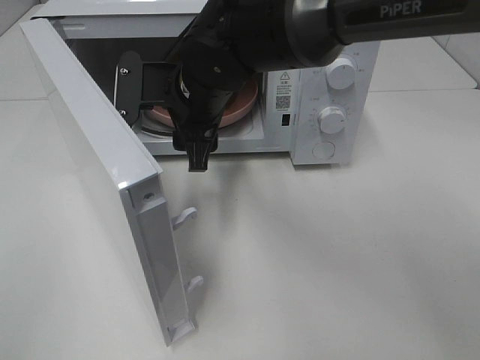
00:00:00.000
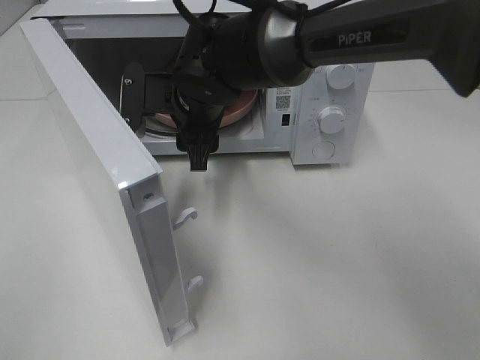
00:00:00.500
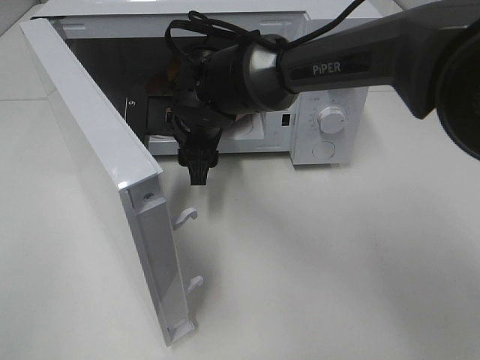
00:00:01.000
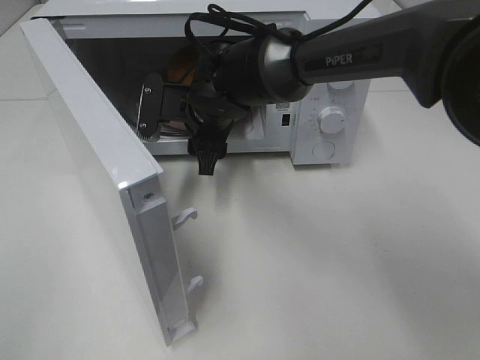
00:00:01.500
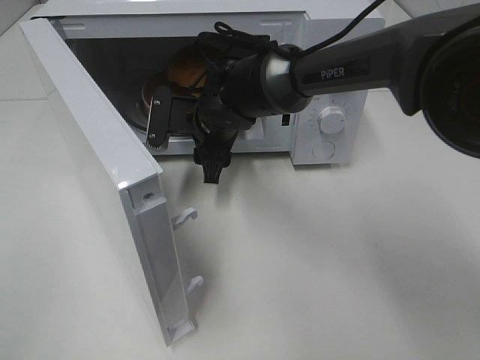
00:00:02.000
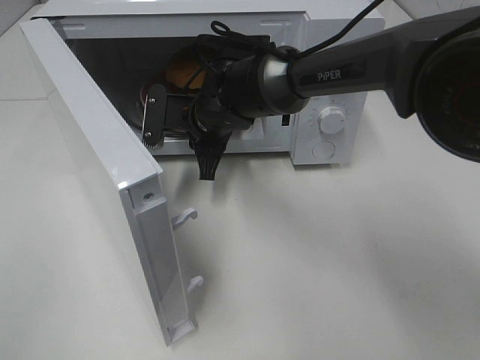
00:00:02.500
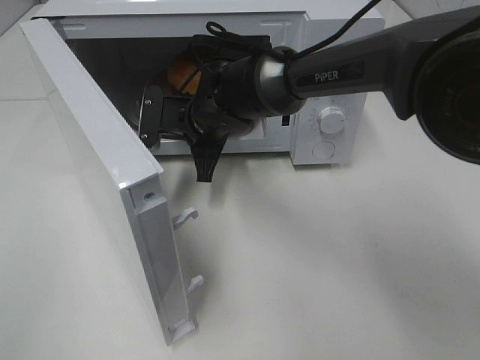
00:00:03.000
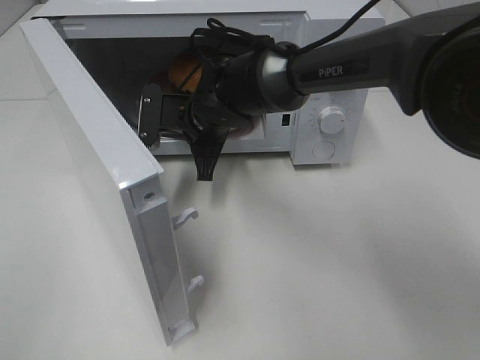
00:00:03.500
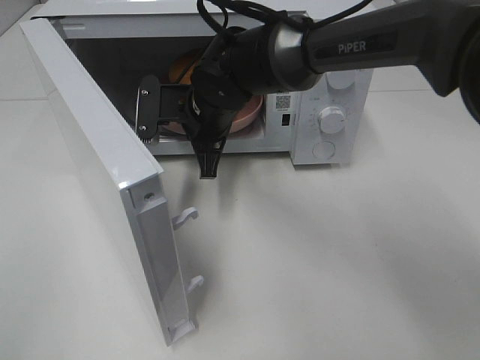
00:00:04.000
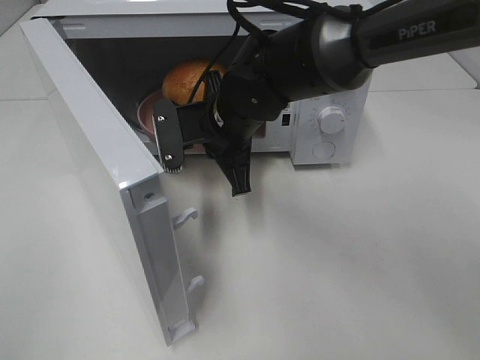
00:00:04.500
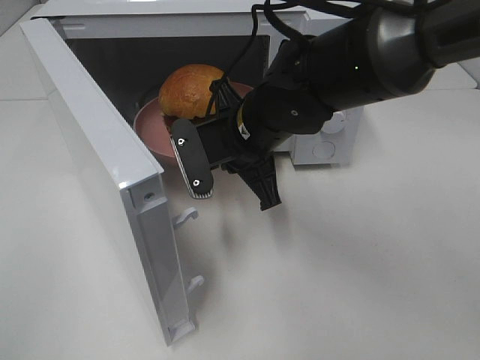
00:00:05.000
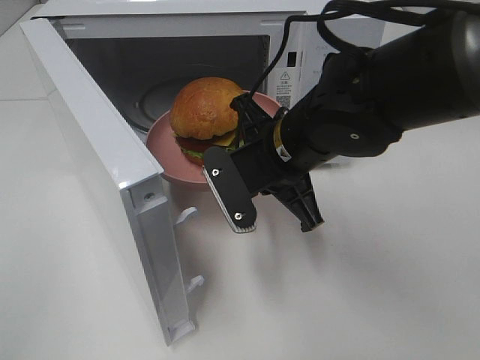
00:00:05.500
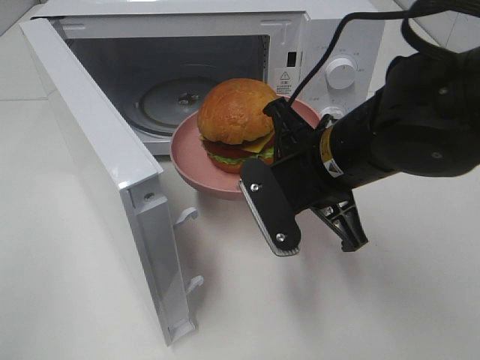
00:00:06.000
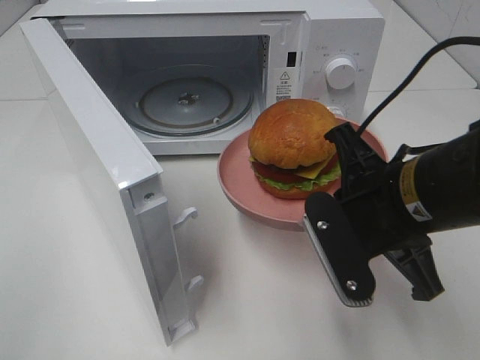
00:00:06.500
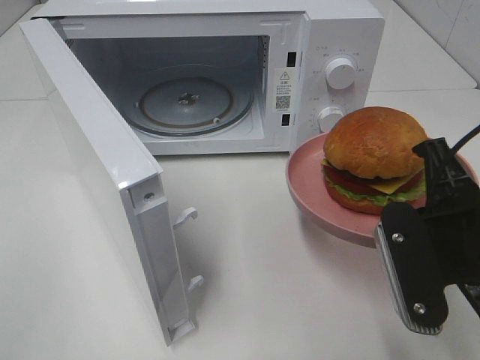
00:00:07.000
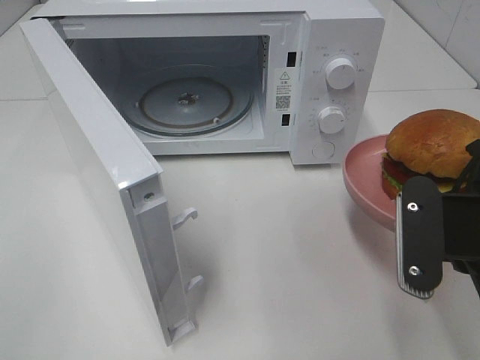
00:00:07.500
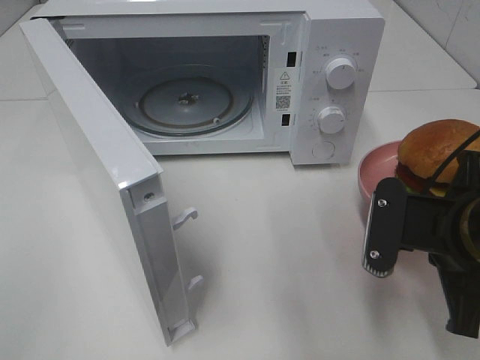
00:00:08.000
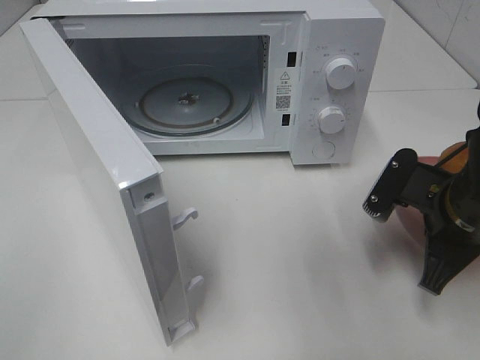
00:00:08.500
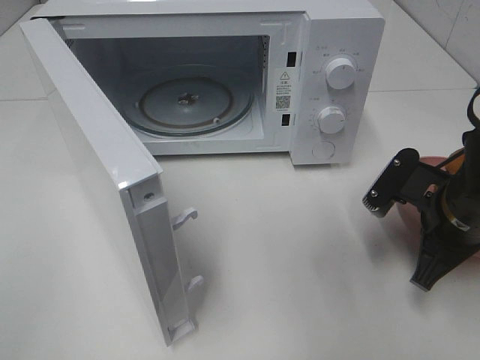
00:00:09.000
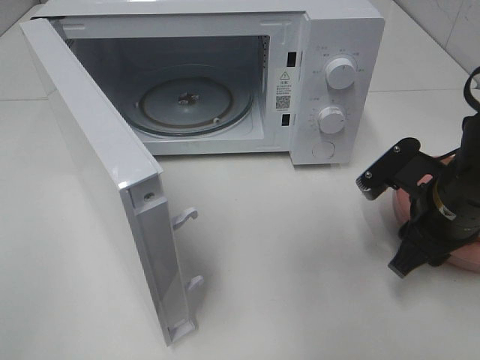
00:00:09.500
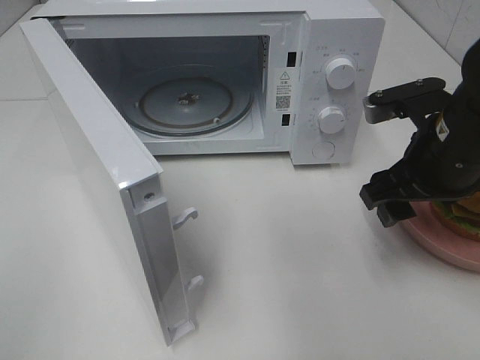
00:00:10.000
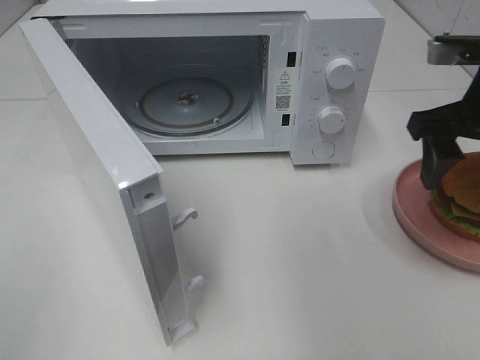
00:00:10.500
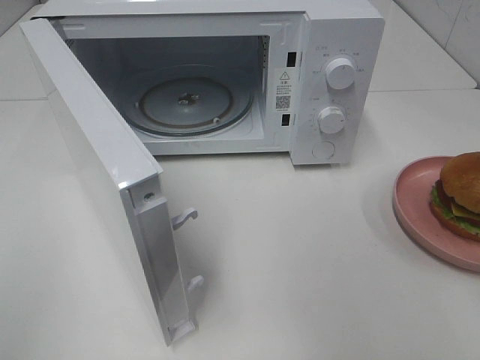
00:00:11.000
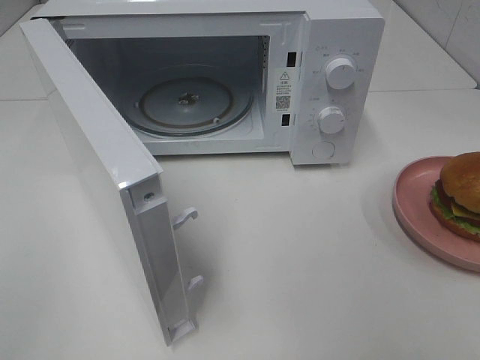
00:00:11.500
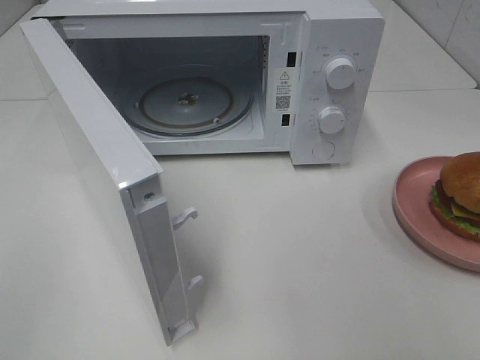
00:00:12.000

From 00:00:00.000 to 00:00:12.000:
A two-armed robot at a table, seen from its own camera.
Task of the whole recording: Heat the burger.
Step, from 00:00:00.000 to 00:00:03.000: Right hand: grab the plate with the hamburger.
Step, from 00:00:03.500 to 00:00:09.000: Right hand: place the plate on the table.
From 00:00:00.000 to 00:00:02.000: The right gripper shifts some 10 cm downward.
From 00:00:02.000 to 00:00:04.000: The right gripper closes up.
From 00:00:04.000 to 00:00:06.000: The right gripper shifts some 20 cm backward and to the right.
From 00:00:06.000 to 00:00:08.000: The right gripper travels to the right and backward by roughly 10 cm.
From 00:00:08.000 to 00:00:10.000: The right gripper goes approximately 10 cm forward, and opens its fingers.
From 00:00:10.000 to 00:00:12.000: The right gripper goes some 25 cm backward.

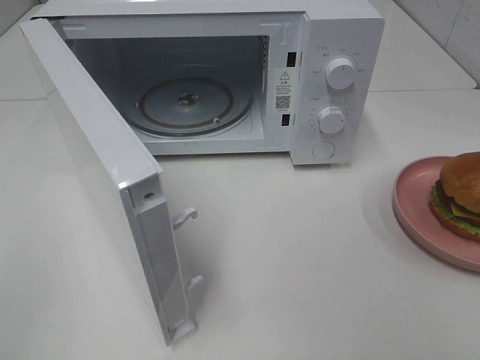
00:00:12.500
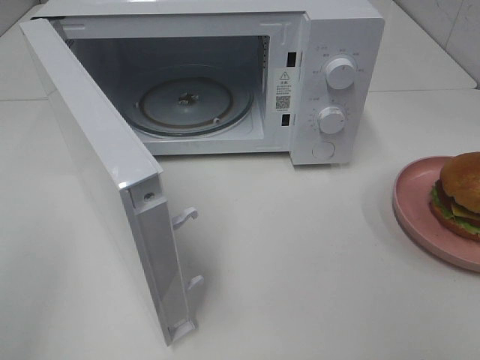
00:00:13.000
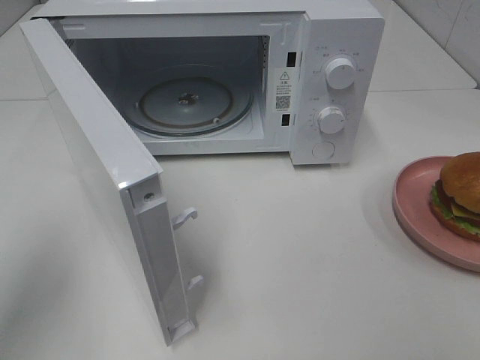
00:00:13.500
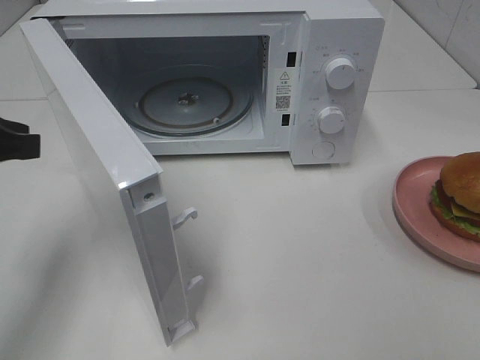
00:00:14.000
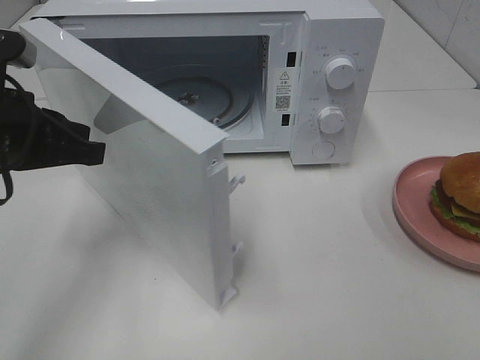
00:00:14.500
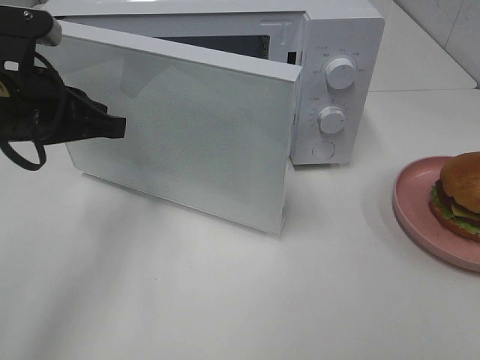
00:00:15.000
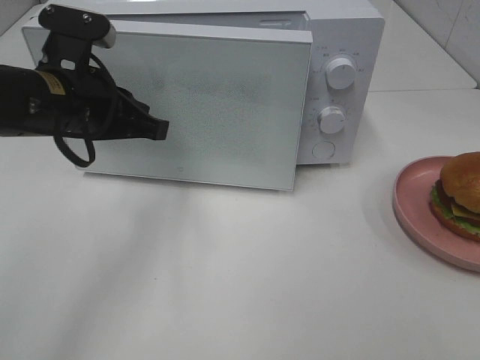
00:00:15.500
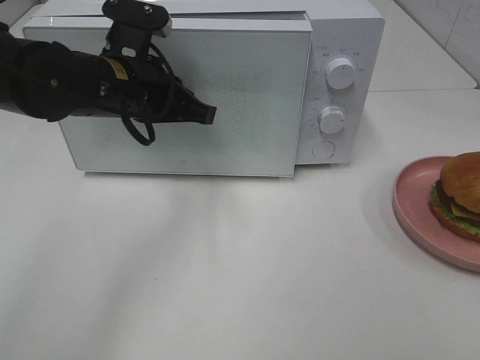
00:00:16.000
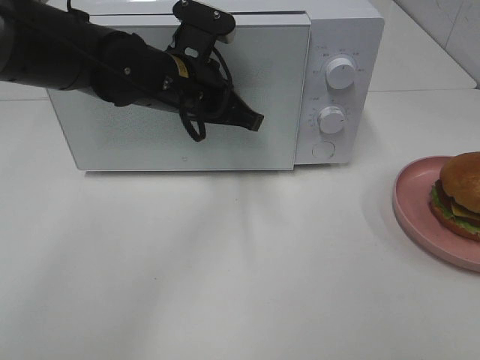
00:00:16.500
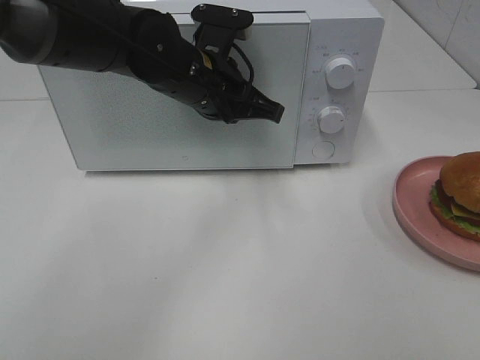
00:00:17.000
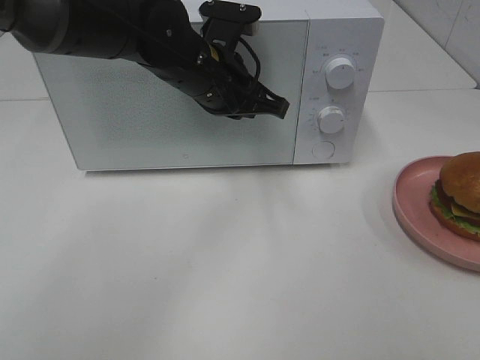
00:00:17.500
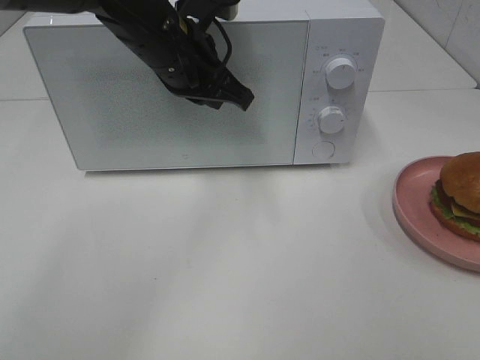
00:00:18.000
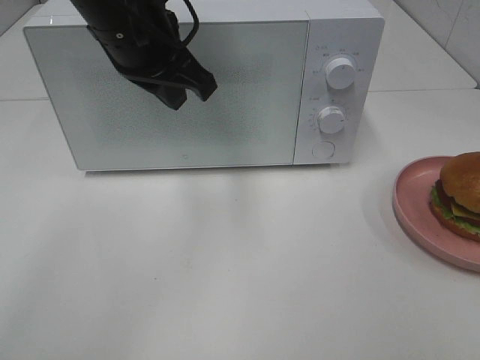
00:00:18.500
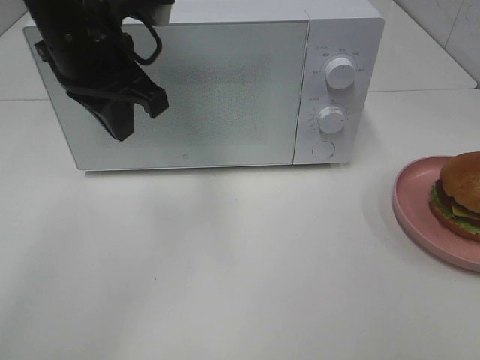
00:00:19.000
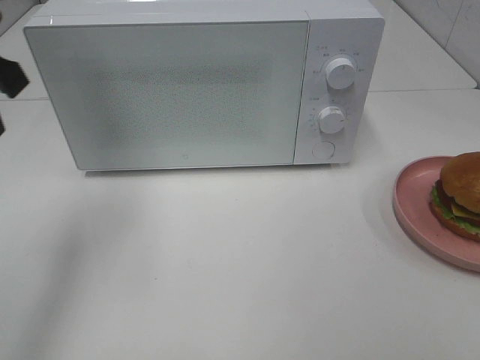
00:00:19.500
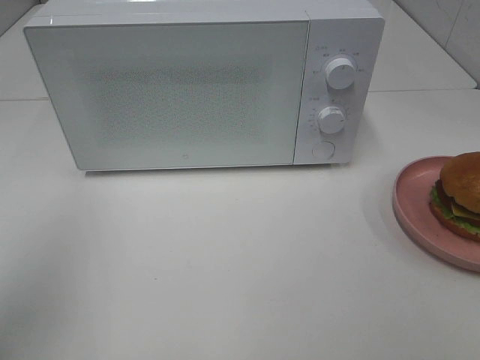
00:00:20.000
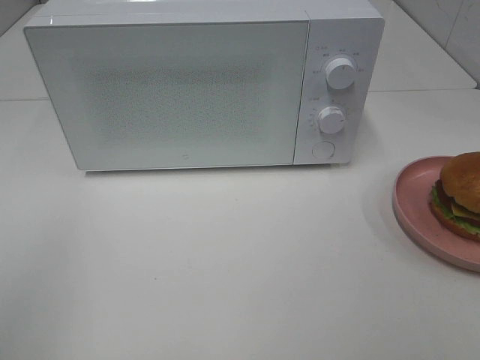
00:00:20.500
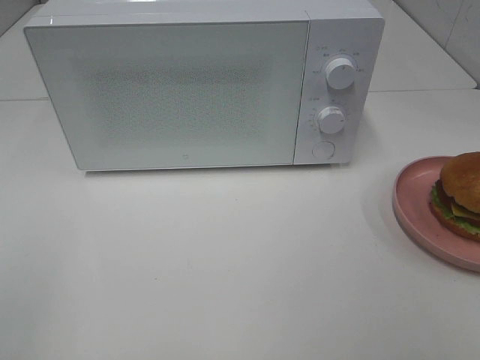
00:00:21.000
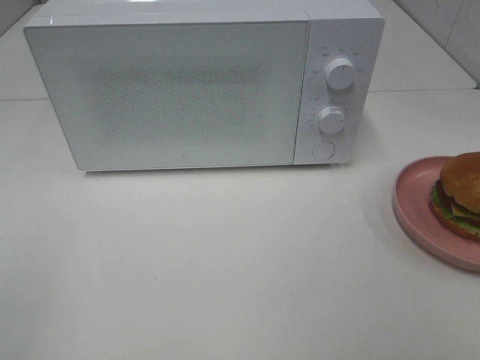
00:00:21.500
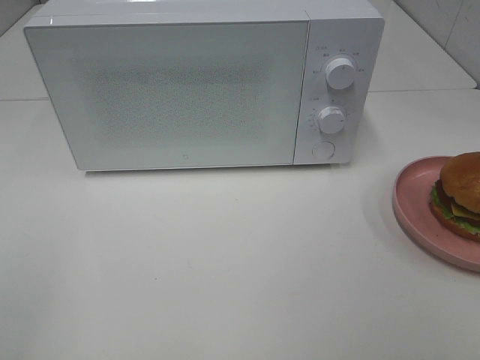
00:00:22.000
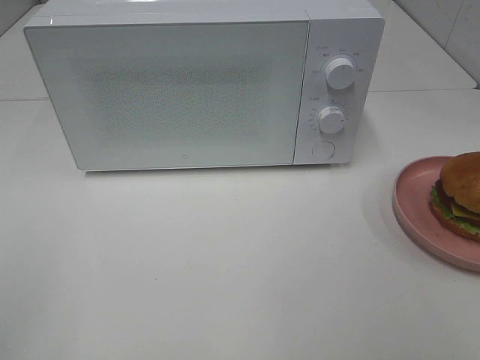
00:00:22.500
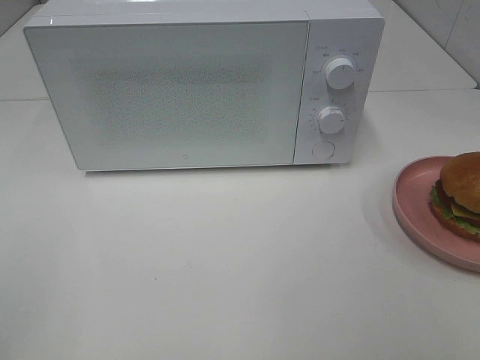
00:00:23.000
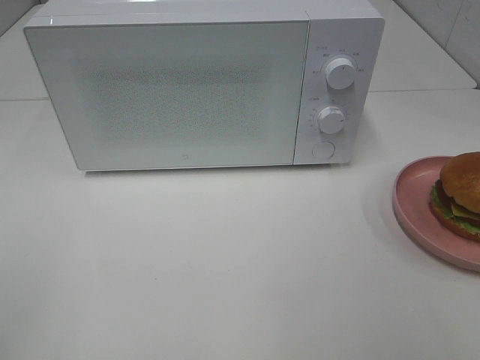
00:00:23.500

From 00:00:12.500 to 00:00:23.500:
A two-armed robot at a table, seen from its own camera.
Task of the whole recording: Heat the burger.
Step, from 00:00:12.500 to 00:00:18.000: Left hand: close the microwave door.
From 00:00:12.500 to 00:00:14.500: The left gripper travels forward and to the right by roughly 30 cm.
From 00:00:14.500 to 00:00:16.000: The left gripper goes roughly 15 cm to the right and forward.
From 00:00:16.000 to 00:00:18.000: The left gripper heads to the right, covering about 5 cm.
From 00:00:18.000 to 00:00:20.000: The left gripper shifts approximately 30 cm to the left and backward.
From 00:00:20.000 to 00:00:21.500: The left gripper goes some 15 cm backward.

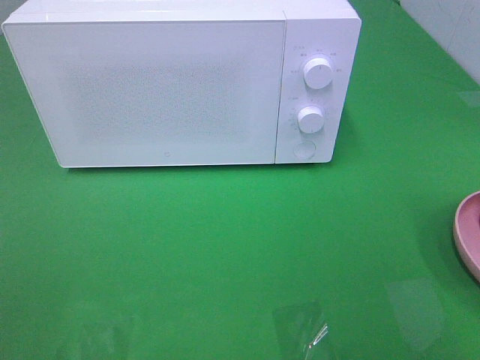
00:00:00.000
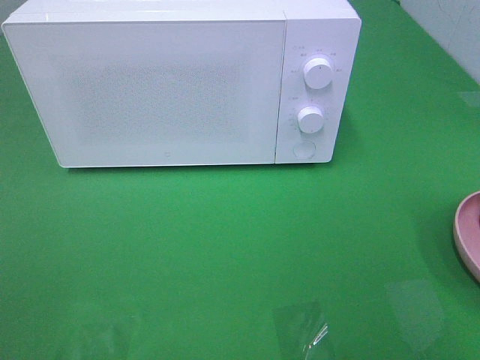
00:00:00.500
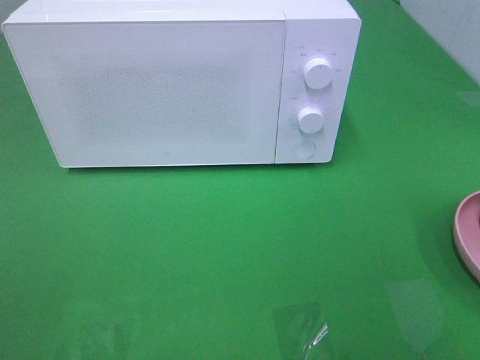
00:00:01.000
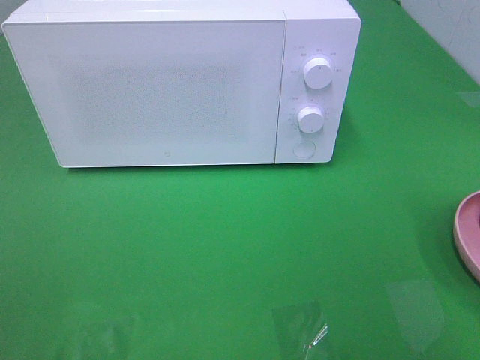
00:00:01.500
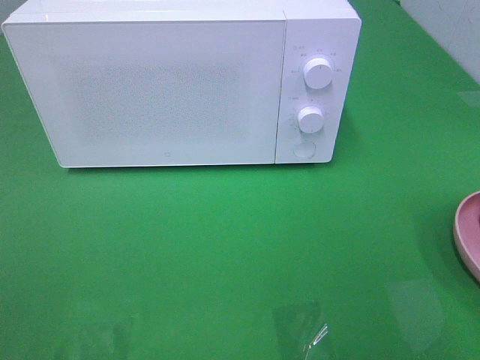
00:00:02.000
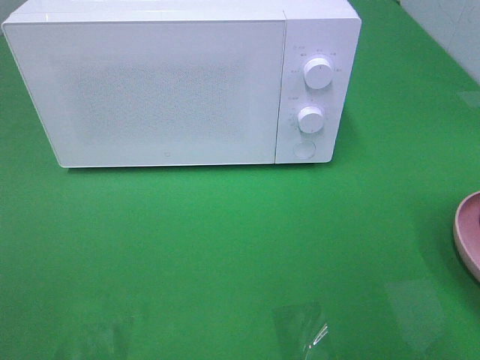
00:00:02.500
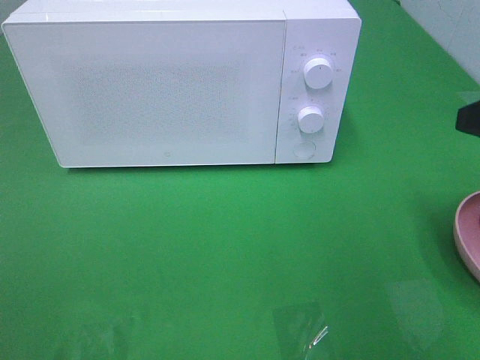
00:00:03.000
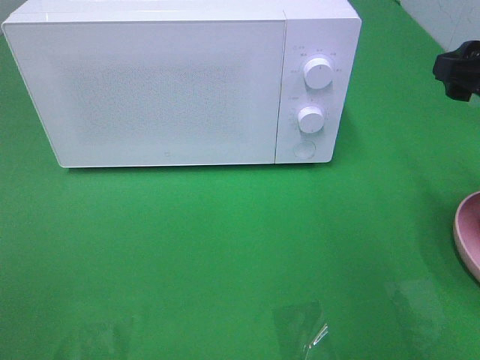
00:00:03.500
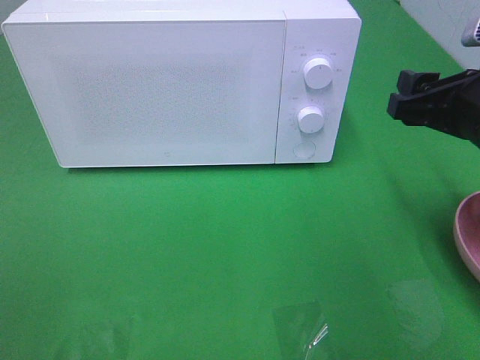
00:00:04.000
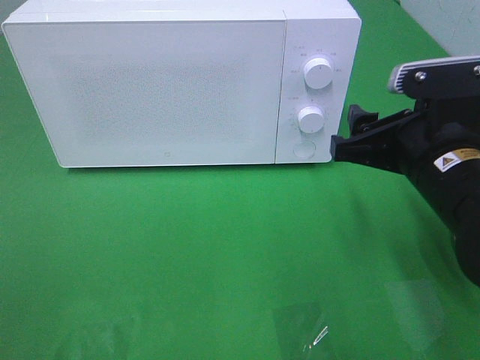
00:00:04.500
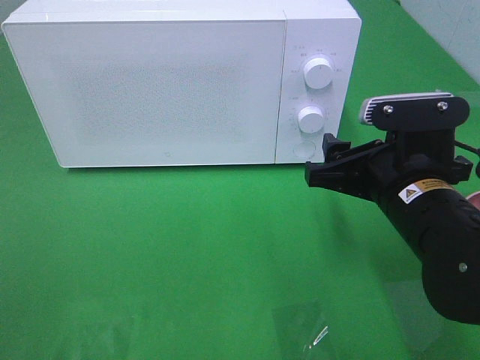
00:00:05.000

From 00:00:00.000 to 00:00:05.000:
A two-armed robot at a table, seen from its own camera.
Task of the whole recording: Heat the burger.
From 00:00:02.500 to 00:00:05.000: The right gripper is displaced downward, to the left and forward by some 20 cm.
